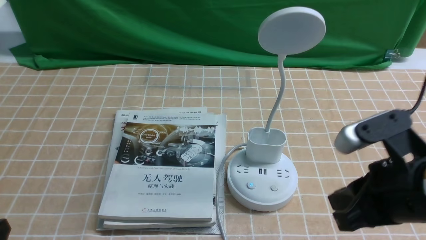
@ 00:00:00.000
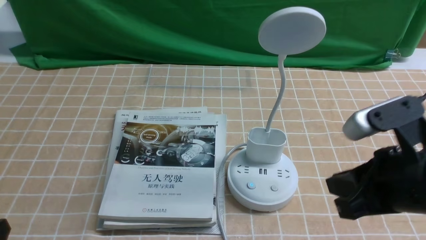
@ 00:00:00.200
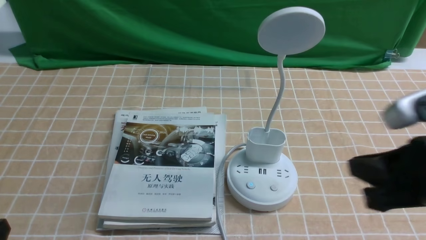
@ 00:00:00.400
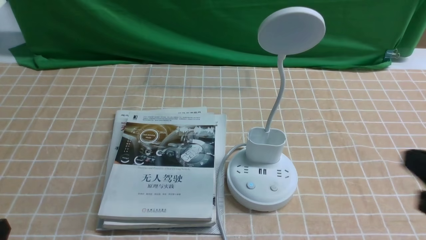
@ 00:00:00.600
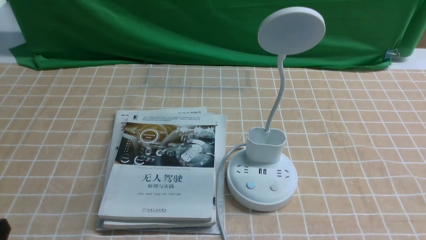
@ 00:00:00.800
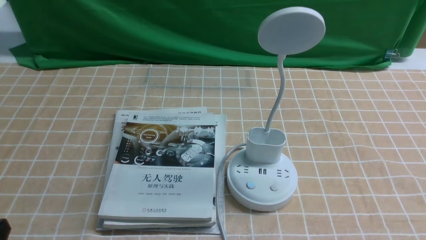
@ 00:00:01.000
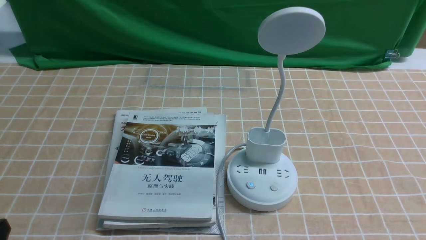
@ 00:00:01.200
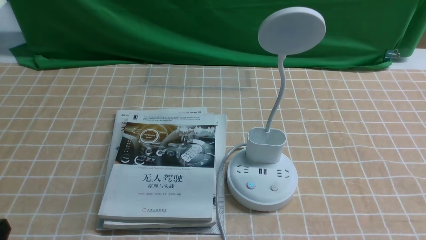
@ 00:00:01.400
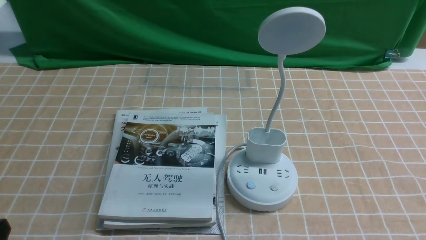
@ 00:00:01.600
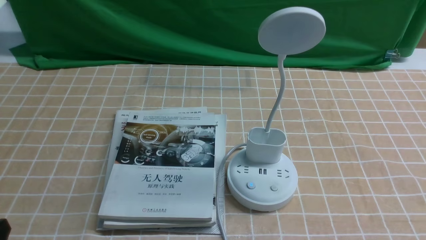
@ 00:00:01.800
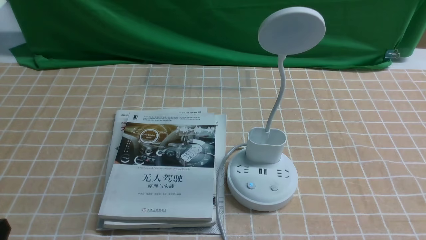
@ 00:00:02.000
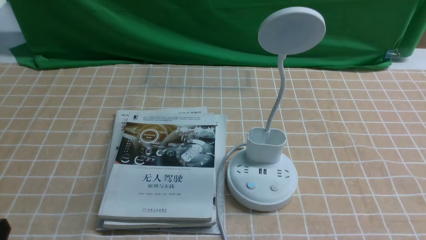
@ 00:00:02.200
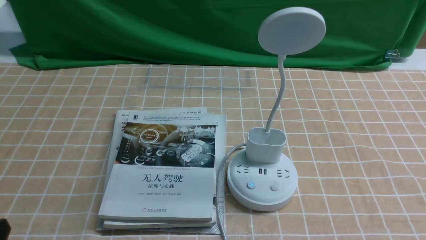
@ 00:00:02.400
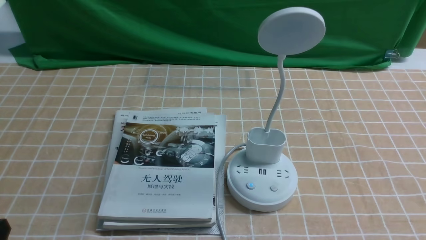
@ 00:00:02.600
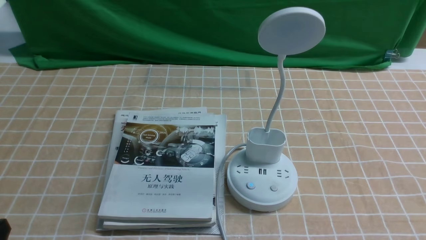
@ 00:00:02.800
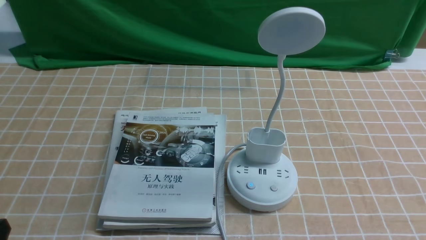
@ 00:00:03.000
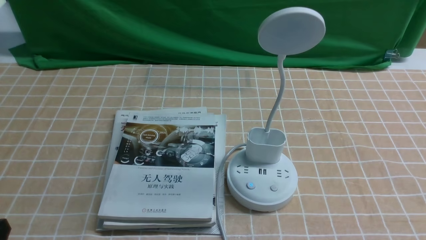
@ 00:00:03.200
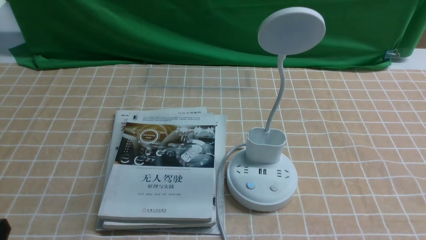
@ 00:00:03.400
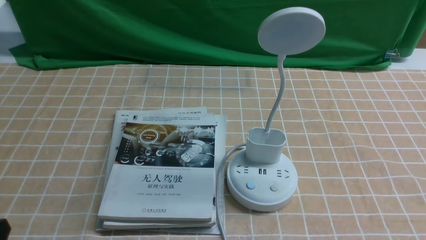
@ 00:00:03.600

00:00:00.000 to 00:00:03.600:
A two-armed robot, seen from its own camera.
Task of the whole recording: turn off the desk lamp on the light coffee tablecloth by hand.
00:00:00.000 to 00:00:01.800: The right gripper is displaced backward, to the right and downward by some 20 cm.

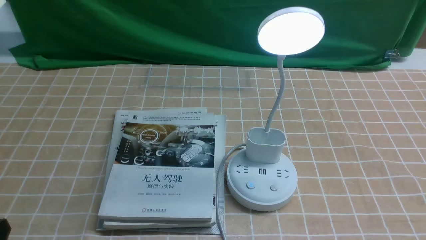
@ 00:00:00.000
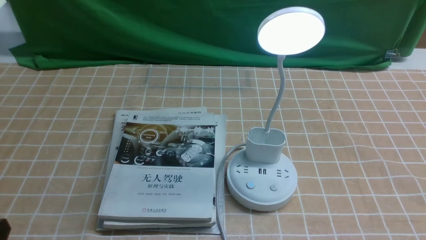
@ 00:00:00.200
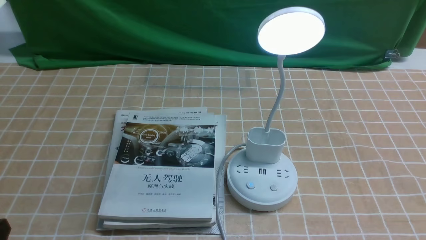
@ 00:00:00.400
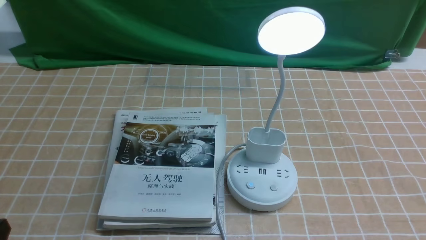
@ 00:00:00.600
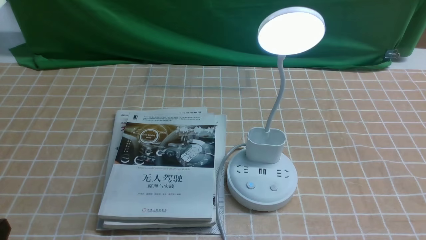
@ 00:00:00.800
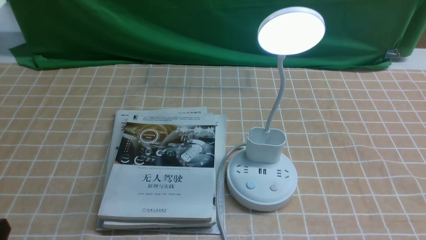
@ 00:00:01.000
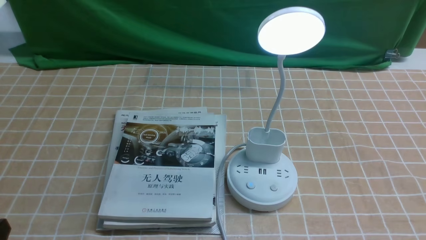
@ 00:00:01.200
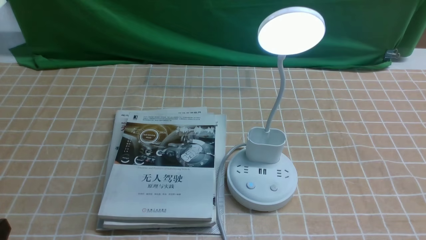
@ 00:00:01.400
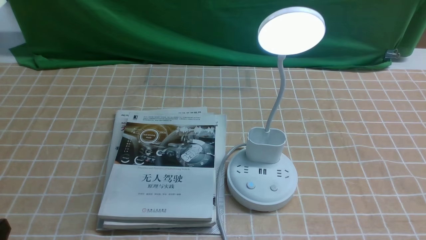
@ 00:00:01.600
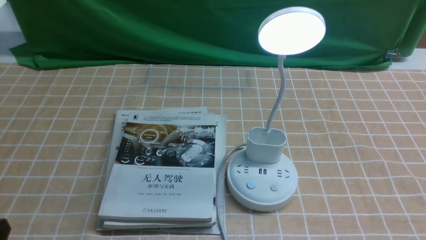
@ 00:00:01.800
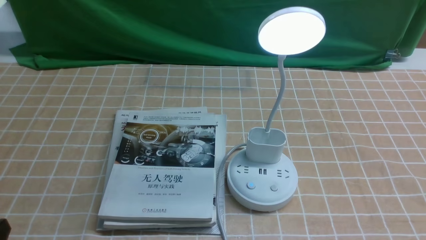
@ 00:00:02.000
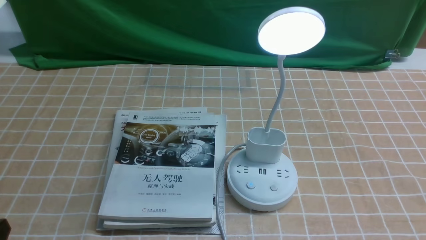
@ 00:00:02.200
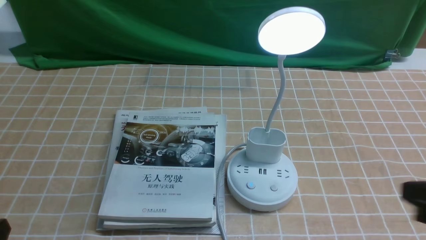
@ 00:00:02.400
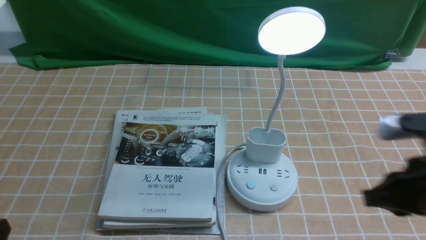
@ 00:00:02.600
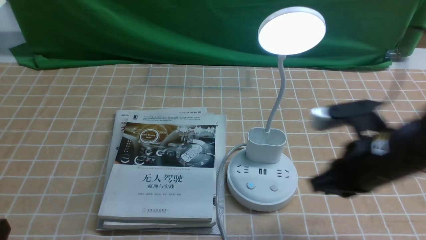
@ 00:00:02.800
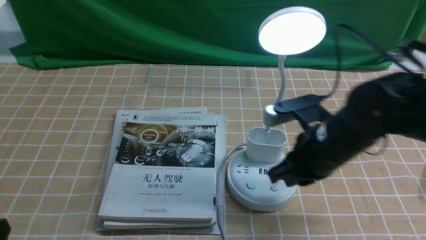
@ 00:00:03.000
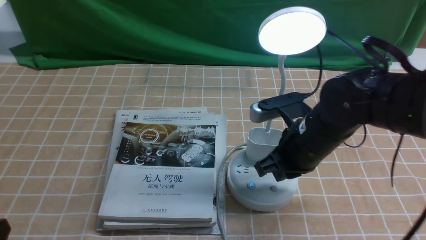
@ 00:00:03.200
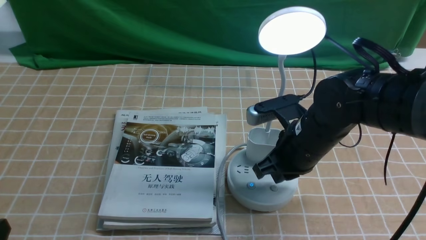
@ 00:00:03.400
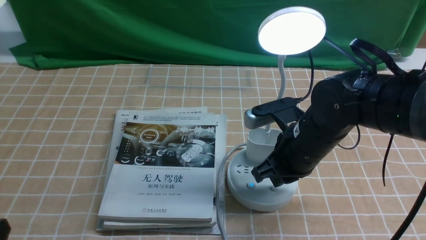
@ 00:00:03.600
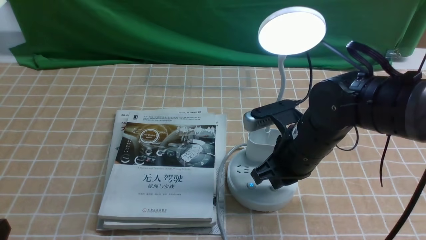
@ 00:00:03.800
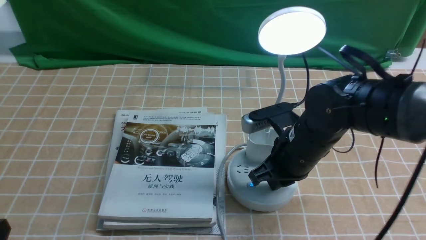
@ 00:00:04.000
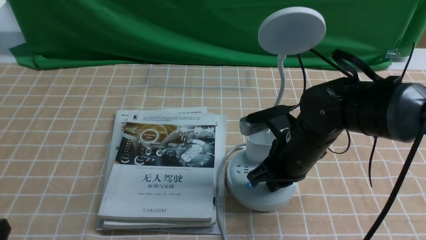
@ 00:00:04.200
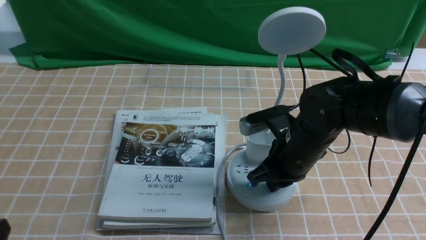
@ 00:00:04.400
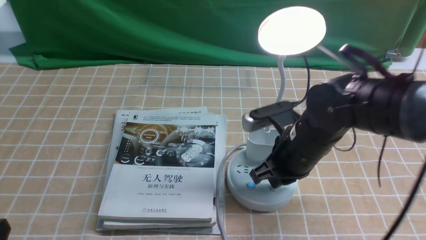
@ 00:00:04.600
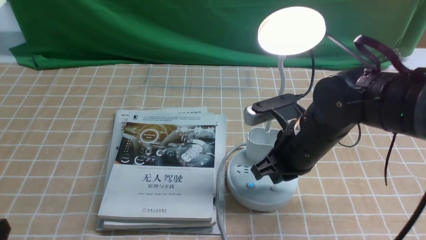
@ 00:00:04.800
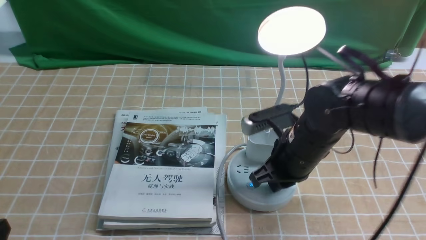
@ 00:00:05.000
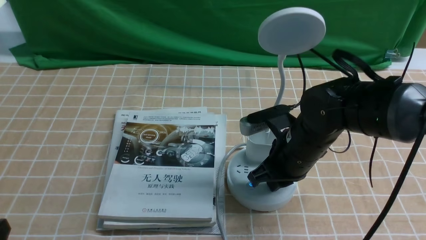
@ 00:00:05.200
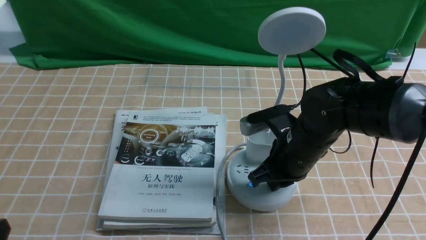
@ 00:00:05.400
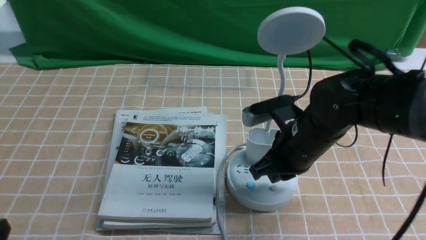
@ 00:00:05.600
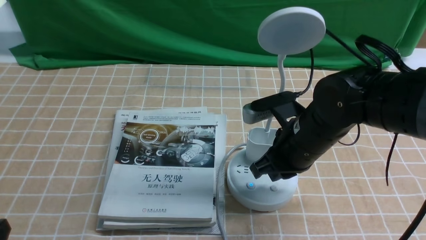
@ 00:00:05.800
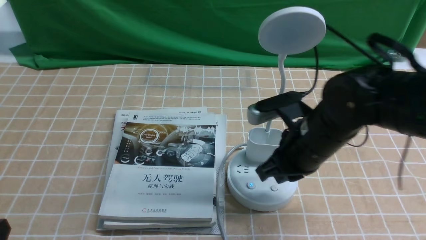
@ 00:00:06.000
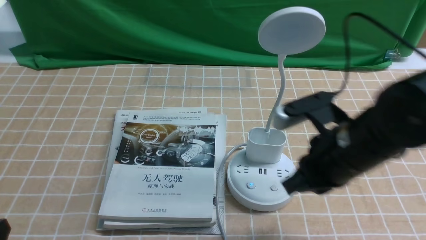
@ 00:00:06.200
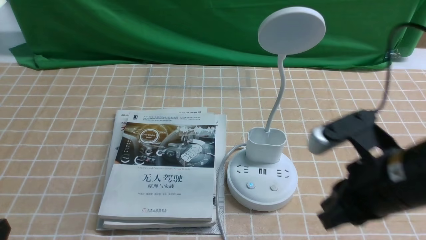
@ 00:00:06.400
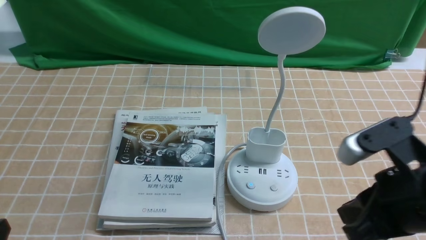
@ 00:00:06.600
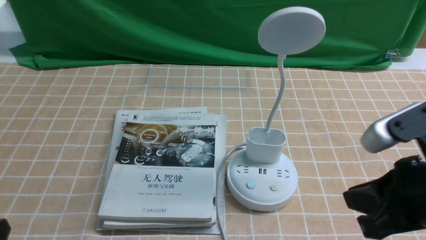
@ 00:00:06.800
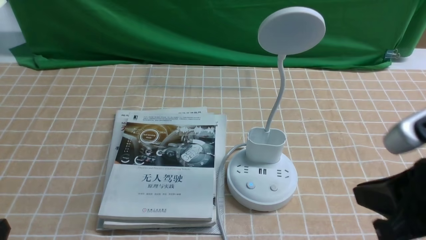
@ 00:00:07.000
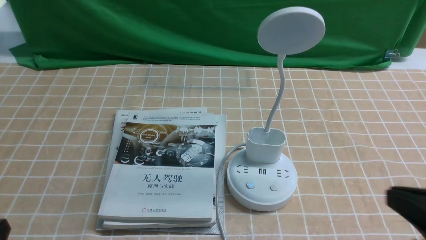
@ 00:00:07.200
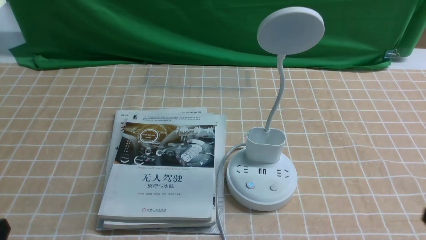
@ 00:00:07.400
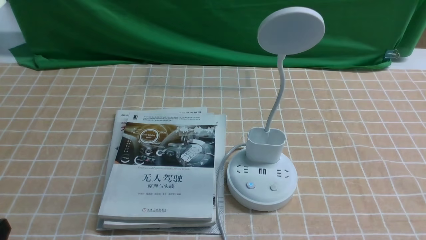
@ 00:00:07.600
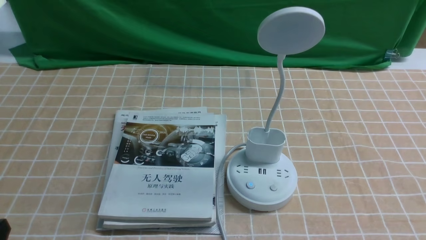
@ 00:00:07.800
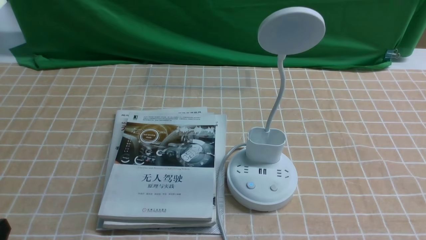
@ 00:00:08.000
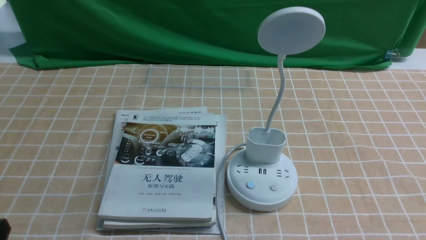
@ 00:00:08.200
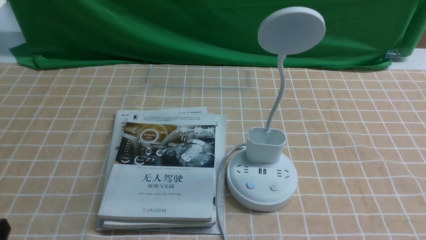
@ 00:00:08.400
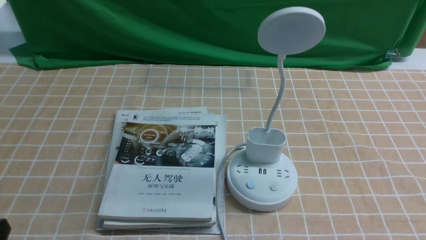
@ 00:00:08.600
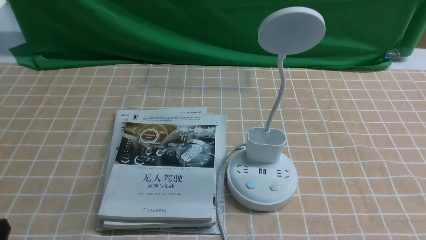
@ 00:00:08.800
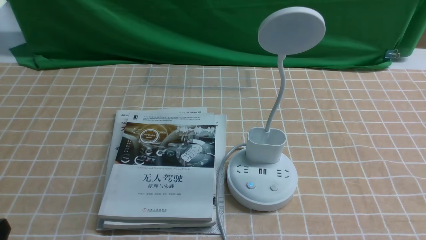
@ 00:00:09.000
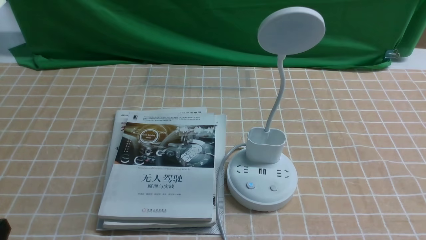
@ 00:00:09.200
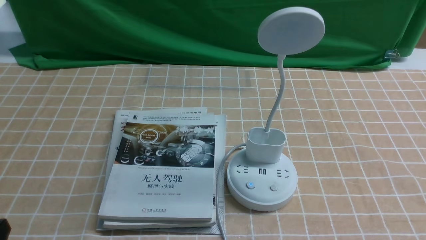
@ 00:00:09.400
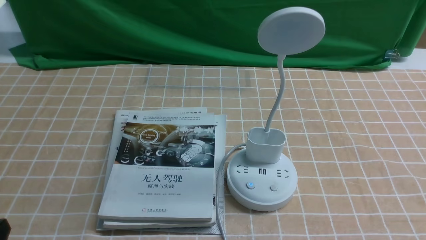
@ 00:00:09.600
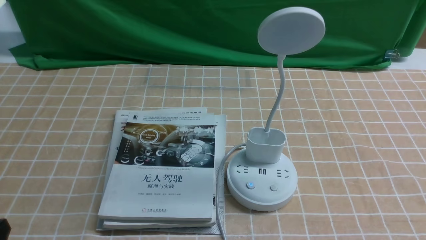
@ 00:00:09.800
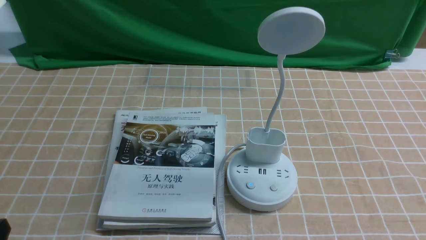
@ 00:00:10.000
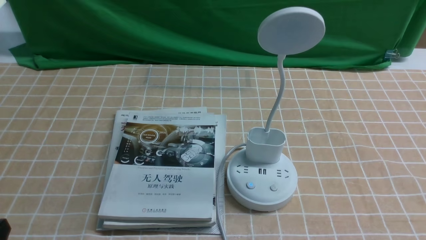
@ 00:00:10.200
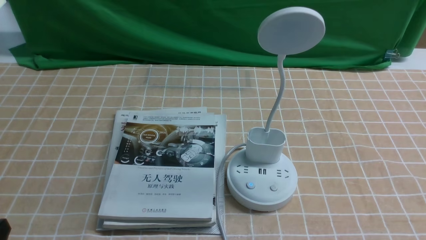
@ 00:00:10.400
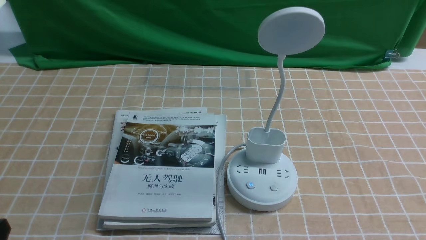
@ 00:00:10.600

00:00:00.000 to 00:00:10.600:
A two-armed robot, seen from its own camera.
Task of the whole recording: turn off the desk lamp on the light coffee tablecloth by hand.
Step, 00:00:00.000 to 00:00:05.800: use the right arm to press the button switch on the lamp holder.
00:00:01.600 to 00:00:03.000: The right gripper moves forward and to the left, roughly 25 cm, and closes up.
00:00:04.600 to 00:00:06.000: The grippers move only a little.
00:00:06.000 to 00:00:07.600: The right gripper shifts some 25 cm backward and to the right.
